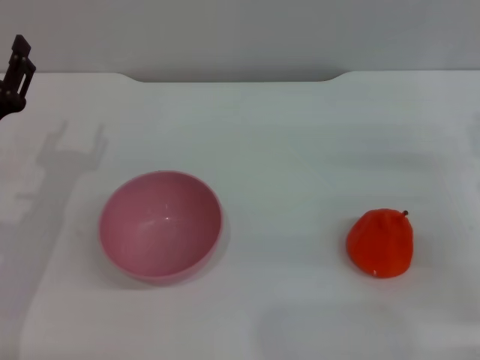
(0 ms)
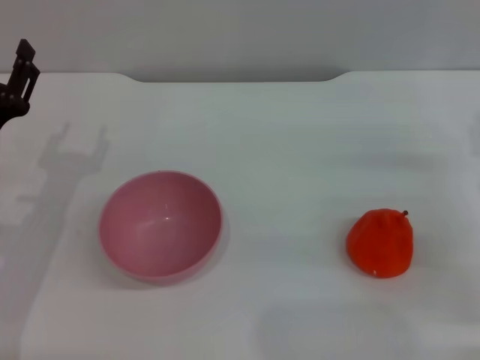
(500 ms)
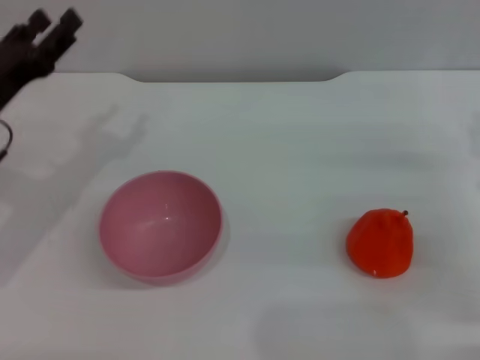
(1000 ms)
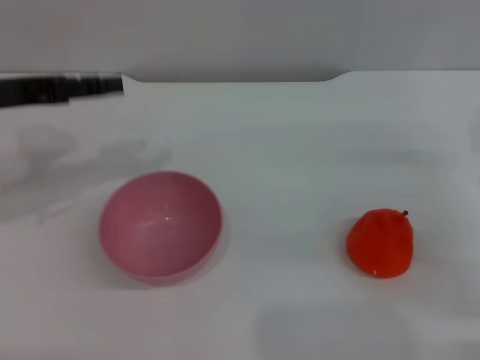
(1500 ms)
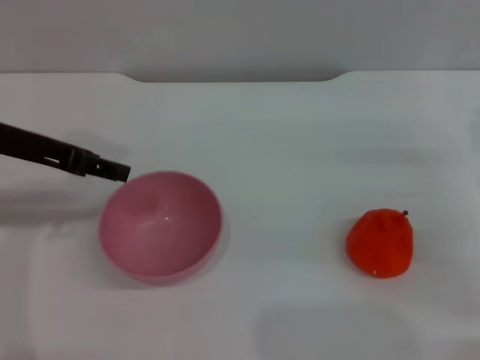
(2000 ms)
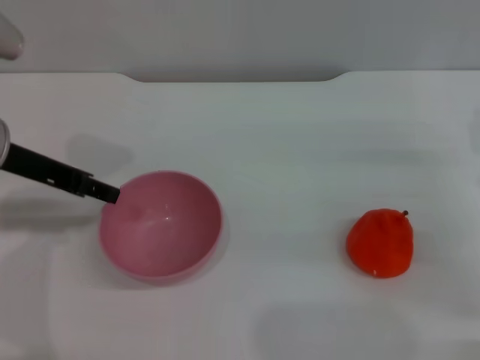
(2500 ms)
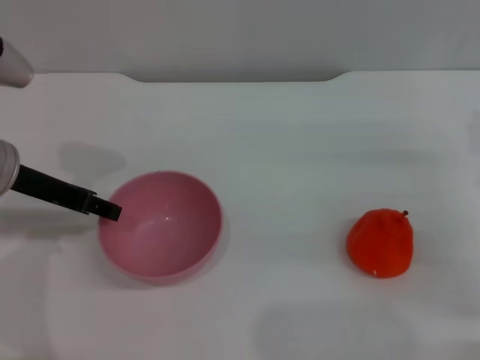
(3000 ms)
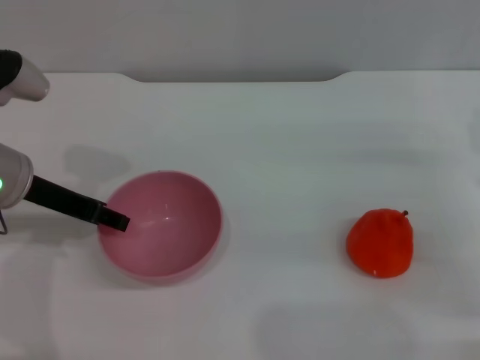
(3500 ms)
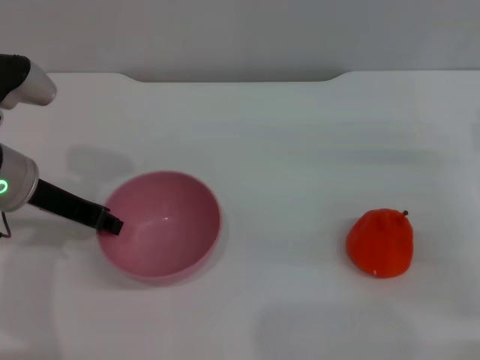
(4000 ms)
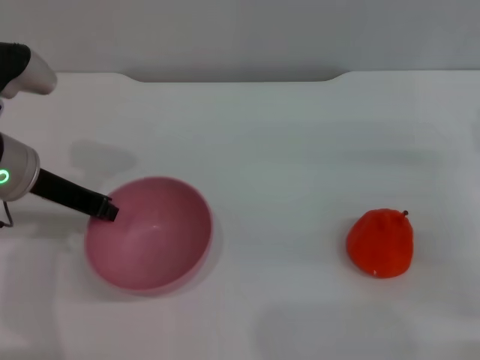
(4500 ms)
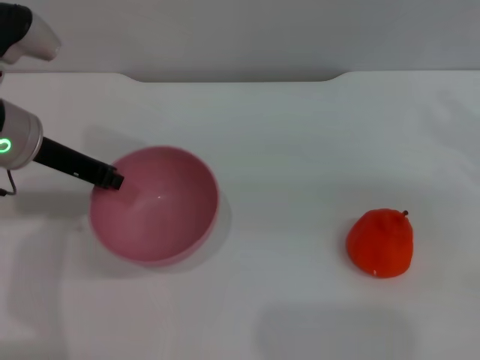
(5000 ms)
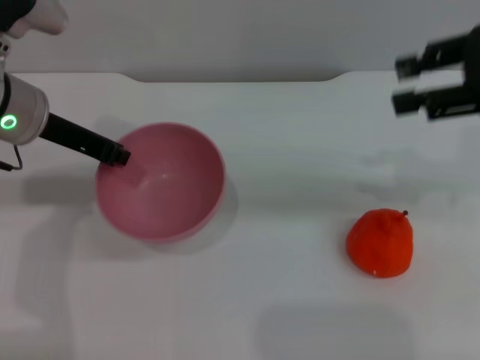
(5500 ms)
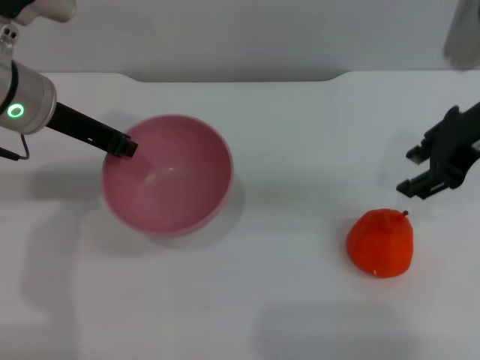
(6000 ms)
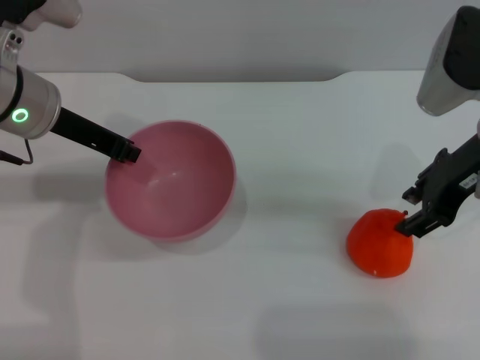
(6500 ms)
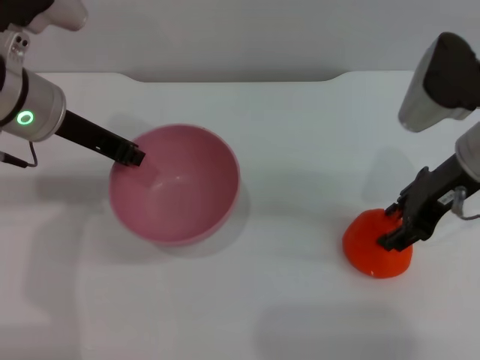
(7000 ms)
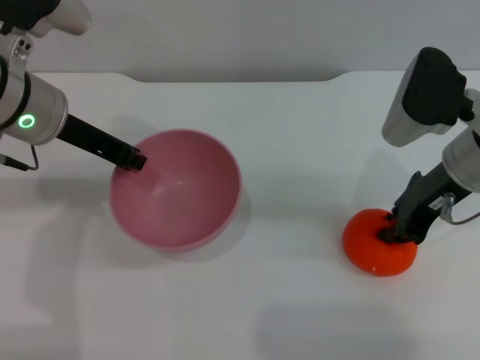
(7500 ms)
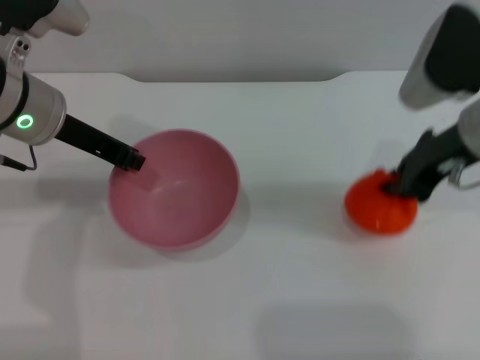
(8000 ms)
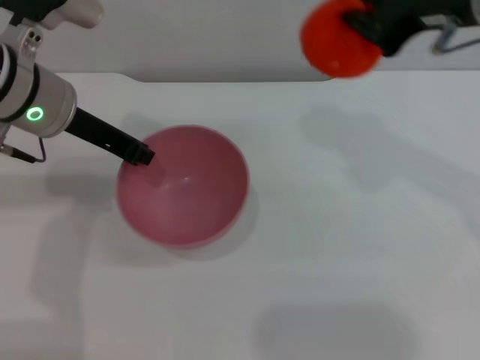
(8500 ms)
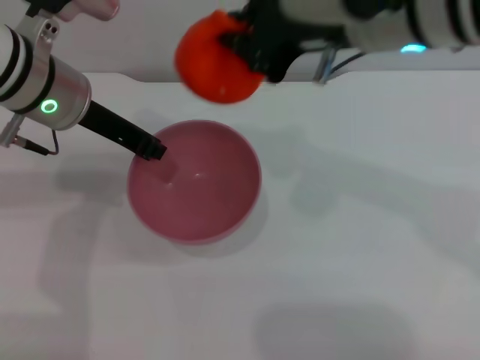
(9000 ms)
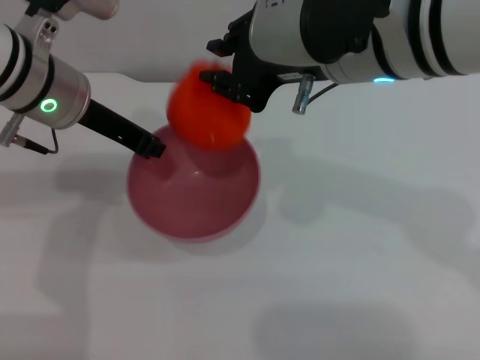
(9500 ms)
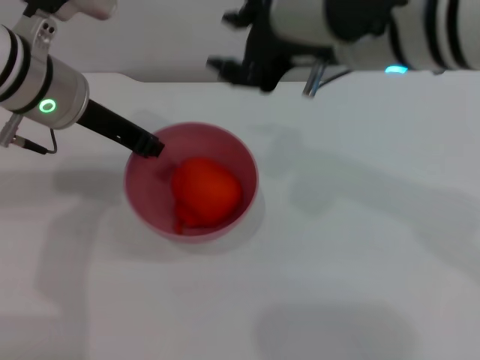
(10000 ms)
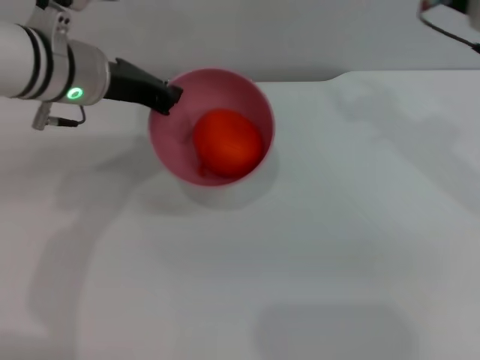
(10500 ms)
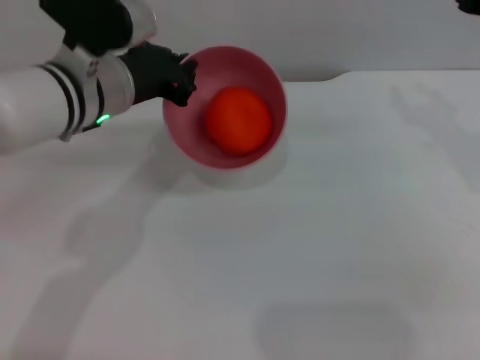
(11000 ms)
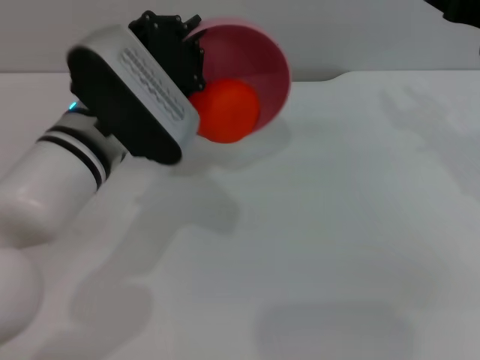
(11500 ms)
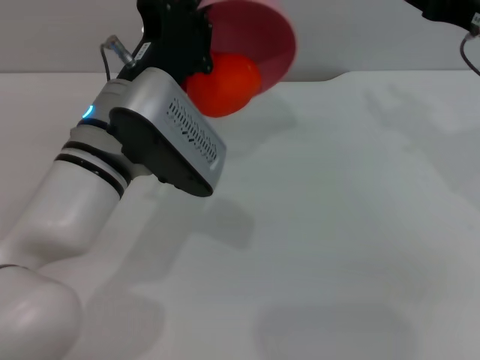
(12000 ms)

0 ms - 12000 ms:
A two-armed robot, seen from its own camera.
Task of the whole recording: put the orange into the pink bowl and pour it out repeatedly.
Step, 0 ms - 5000 ms: Pick up the bowl with the left gripper.
Step, 5500 ms - 8000 ms: Pick up the orange with the right gripper.
Step, 8500 ms - 9500 ms: Place the orange into the bowl.
0 ms - 2000 ms: The left gripper travels upward by about 15 cm.
2000 ms - 4000 ms: The left gripper shifts approximately 5 cm downward.
4000 ms - 6000 ms: The left gripper goes about 5 cm upward, and closes up. The right gripper is displaced upward and to the left by approximately 20 cm.
6000 ms - 8000 ms: The right gripper closes up.
8000 ms - 10000 ms: The right gripper goes approximately 15 cm to the left and upward, and opens up.
10000 ms - 12000 ms: The right gripper heads to the right and downward, covering some 15 cm; the left gripper is displaced to the right, backward and downward by about 10 cm.

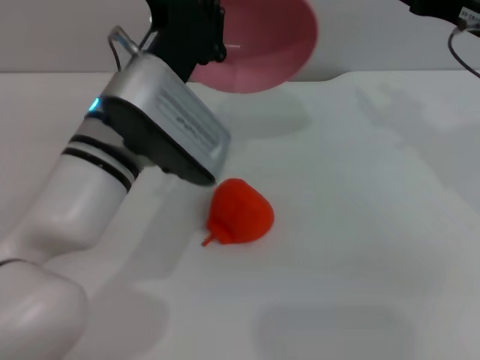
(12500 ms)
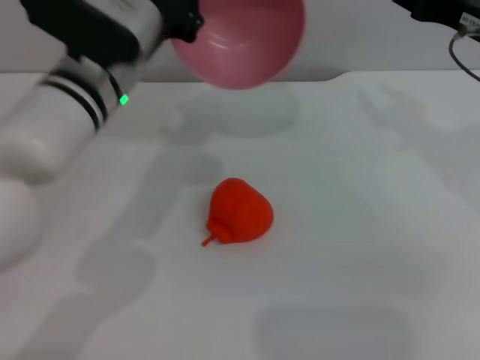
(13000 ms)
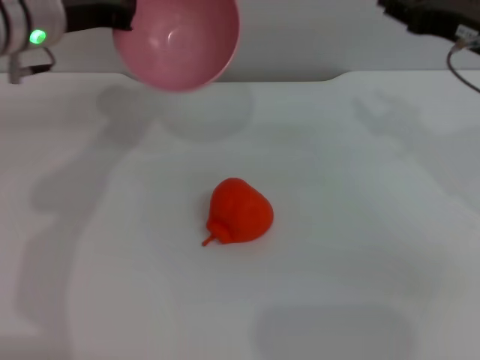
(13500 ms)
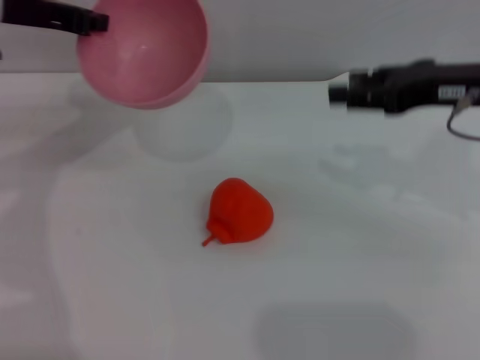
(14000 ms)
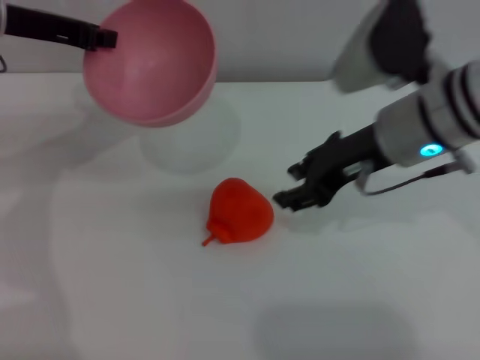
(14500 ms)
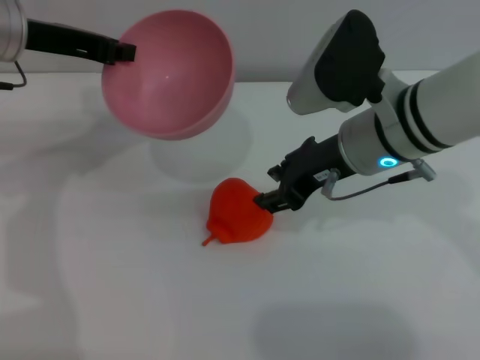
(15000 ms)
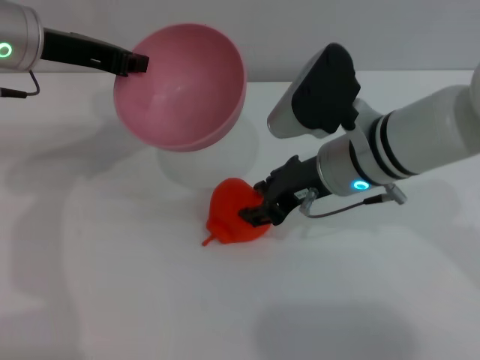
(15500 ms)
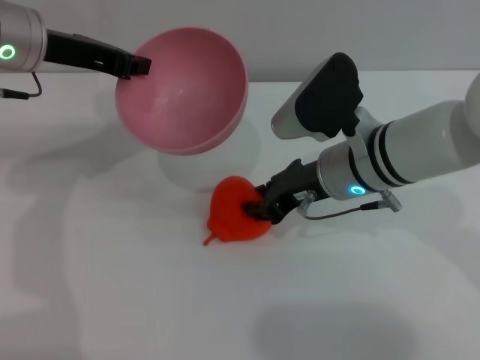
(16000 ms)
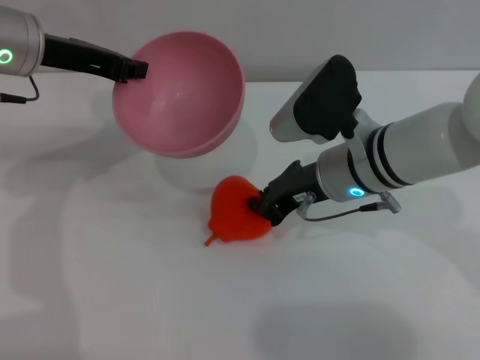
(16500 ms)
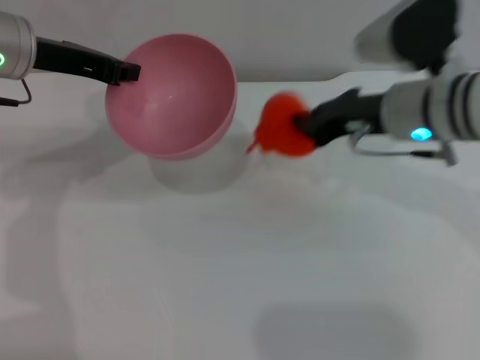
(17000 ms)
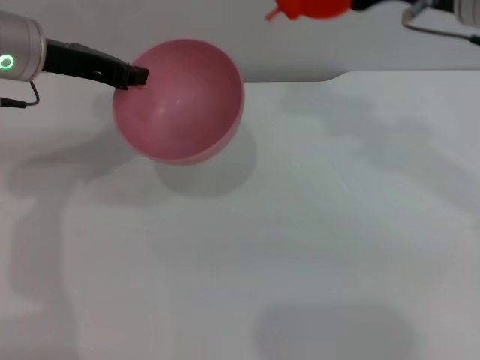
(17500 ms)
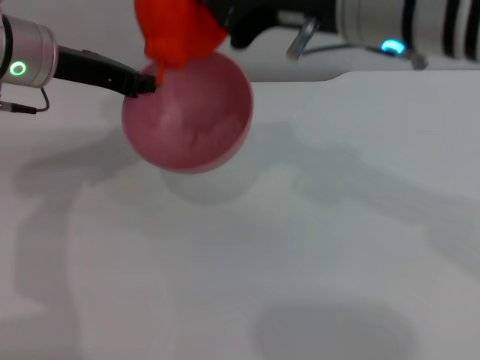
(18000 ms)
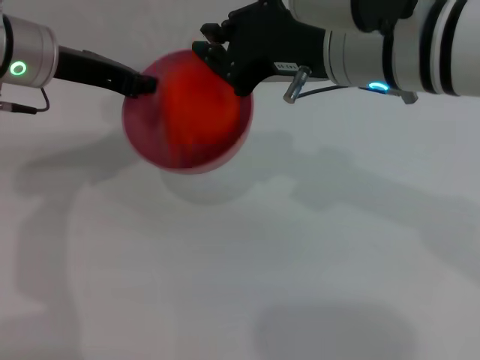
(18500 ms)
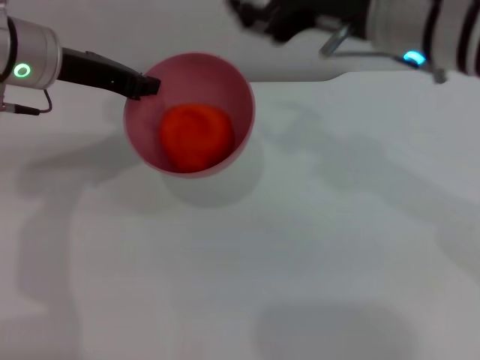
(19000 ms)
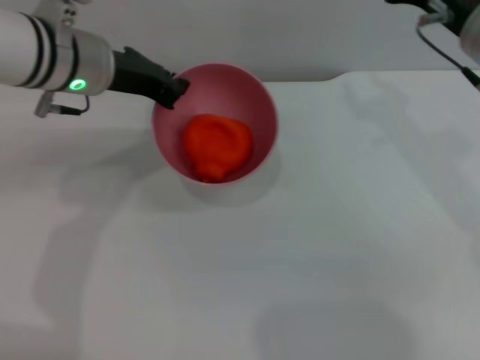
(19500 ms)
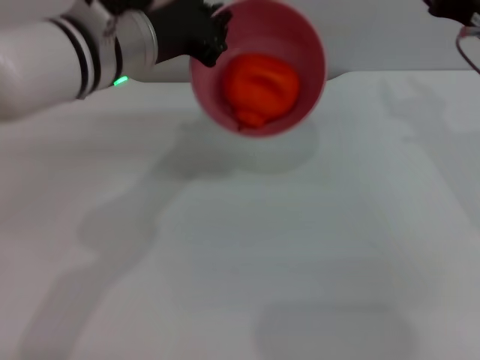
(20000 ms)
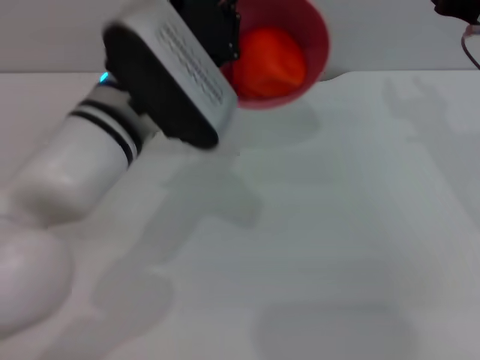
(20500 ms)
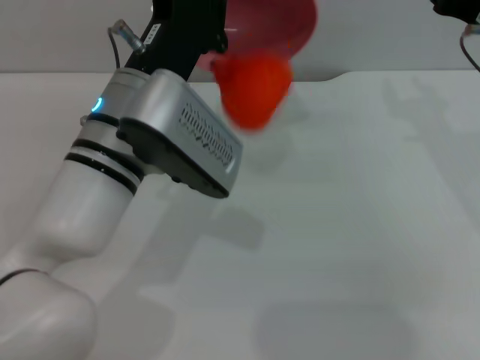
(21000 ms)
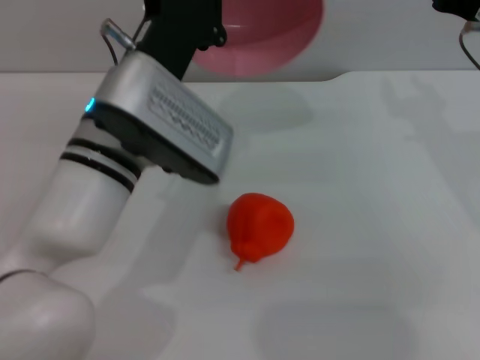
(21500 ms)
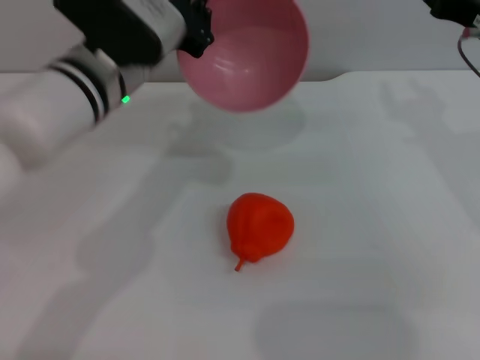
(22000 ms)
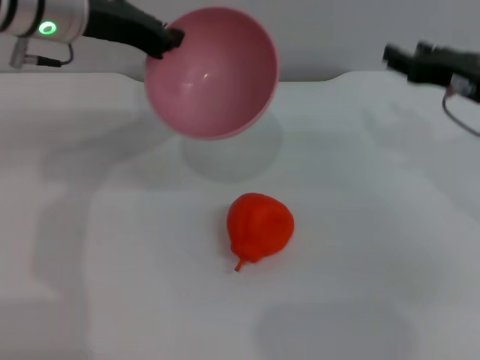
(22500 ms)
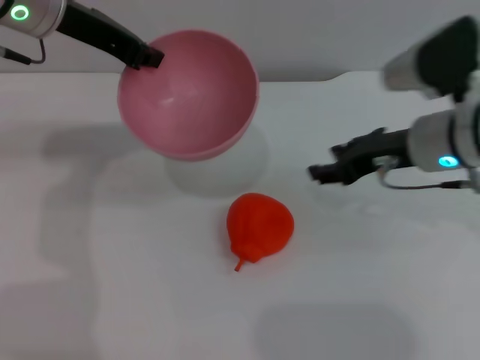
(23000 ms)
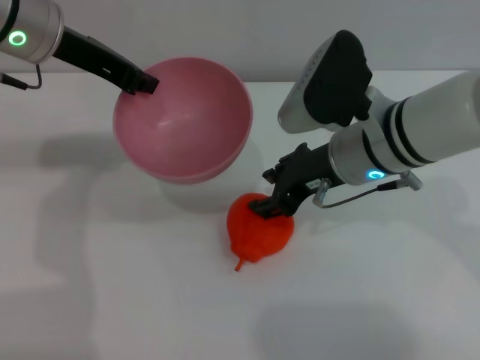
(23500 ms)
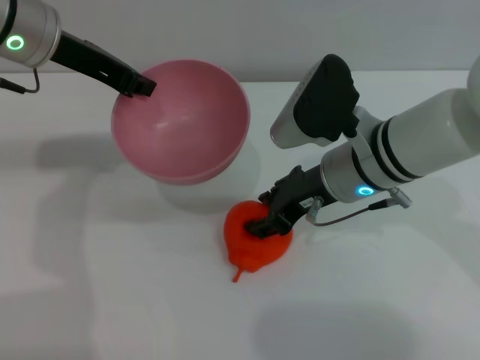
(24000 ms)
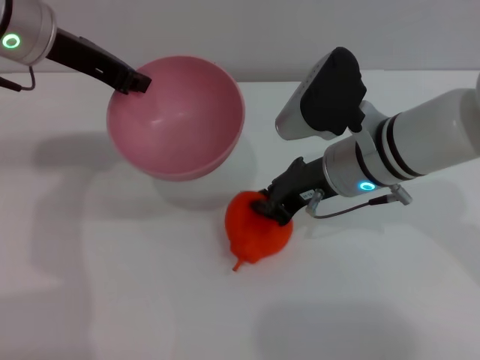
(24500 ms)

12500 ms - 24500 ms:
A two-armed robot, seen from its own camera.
Task of the whole recording: put the orange into the pink bowl and pour it out repeatedly.
Step, 12500 ms - 17000 ms: Pick up the orange with the right gripper.
Step, 17500 ms - 18500 ms: Place the orange into the bowl.
Step, 19000 ms - 21000 ms: Pour the orange out of the bowl.
12500 ms - 14500 ms: The left gripper is displaced to the left, forward and upward by some 20 cm. The right gripper travels to the left by some 10 cm.
14500 ms - 16500 ms: The right gripper moves downward, some 5 cm, and closes its fingers.
16500 ms - 18500 ms: The right gripper travels upward by about 15 cm.
18500 ms - 20500 ms: The right gripper shifts about 15 cm to the right and downward, and opens up. Meanwhile the left gripper shifts roughly 15 cm to the right and backward.
20500 ms - 22500 ms: The left gripper shifts roughly 15 cm forward, to the left and upward.
22500 ms - 24500 ms: The right gripper heads to the left, covering some 15 cm, and closes up.

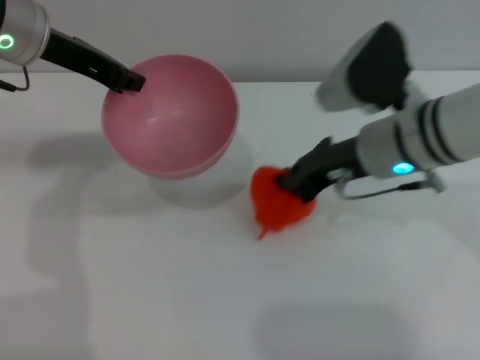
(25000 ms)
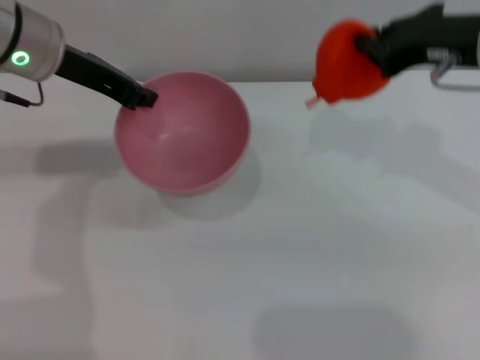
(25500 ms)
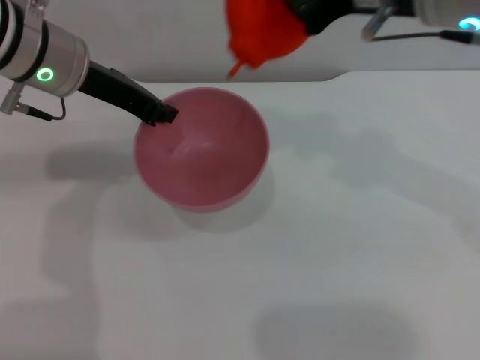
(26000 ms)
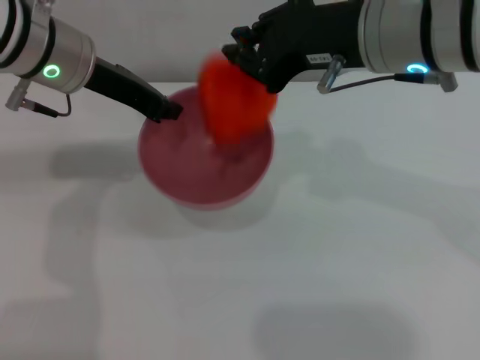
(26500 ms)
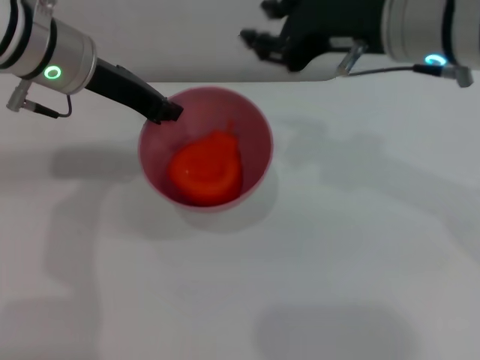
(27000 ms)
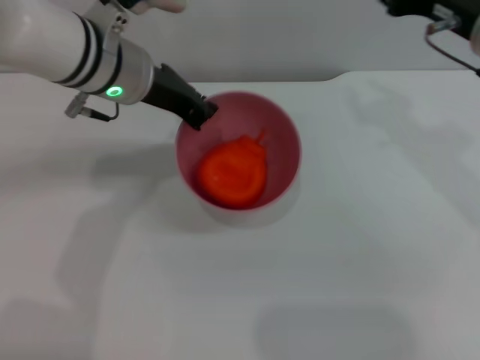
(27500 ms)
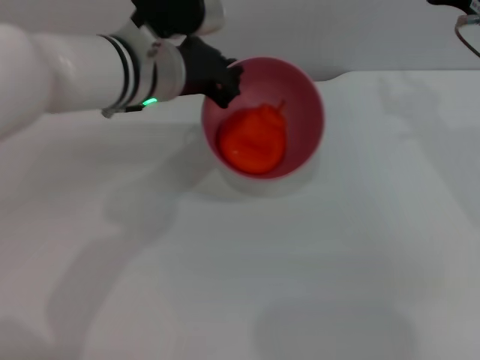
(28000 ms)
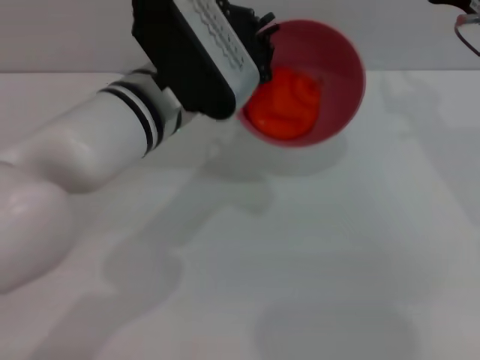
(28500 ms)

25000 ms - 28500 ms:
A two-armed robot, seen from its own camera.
Task of the whole recording: put the orange into the pink bowl and pour it out repeatedly.
Step, 25500 ms - 26500 ms: Place the orange into the bowl.
25000 ms - 27000 ms: The right gripper is displaced upward by roughly 10 cm, and opens its fingers.
27000 ms - 28500 ms: The left gripper moves to the right and backward, roughly 10 cm, while the right gripper shifts some 10 cm to the right and downward.
